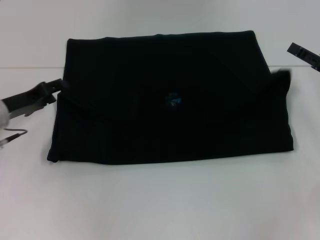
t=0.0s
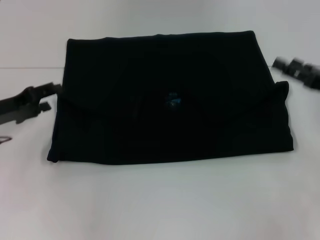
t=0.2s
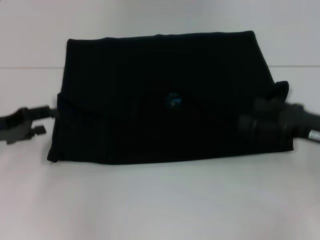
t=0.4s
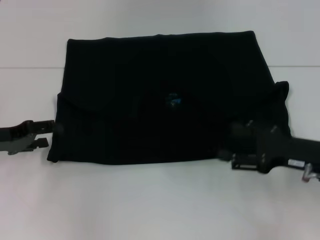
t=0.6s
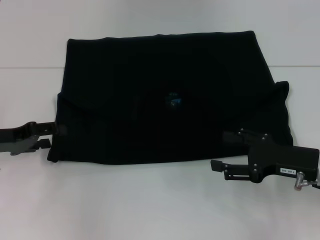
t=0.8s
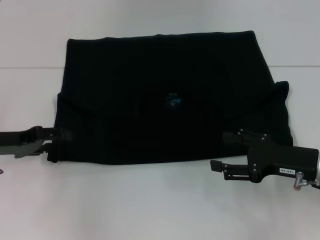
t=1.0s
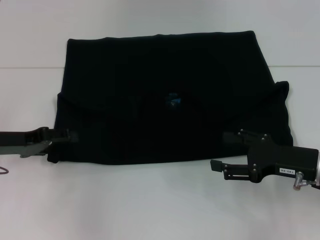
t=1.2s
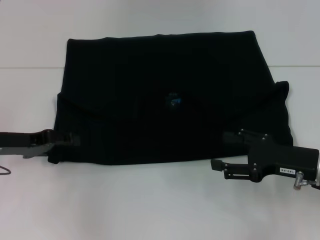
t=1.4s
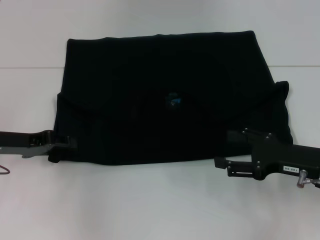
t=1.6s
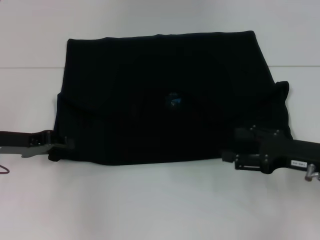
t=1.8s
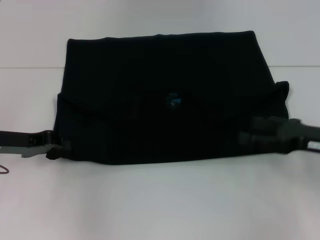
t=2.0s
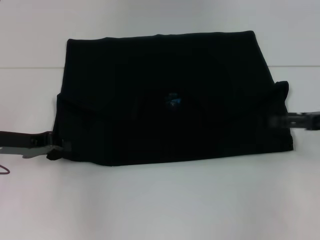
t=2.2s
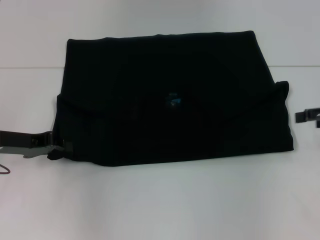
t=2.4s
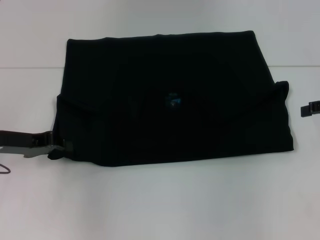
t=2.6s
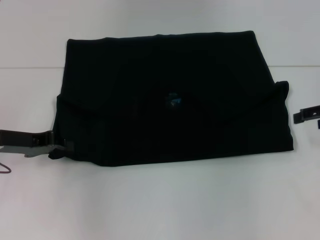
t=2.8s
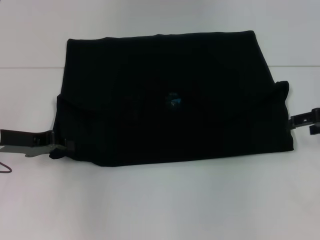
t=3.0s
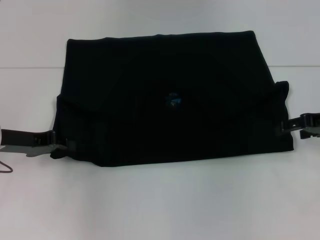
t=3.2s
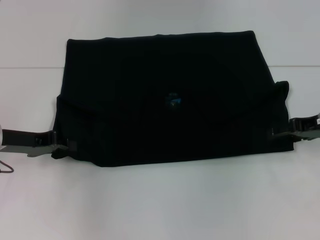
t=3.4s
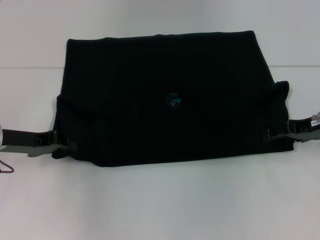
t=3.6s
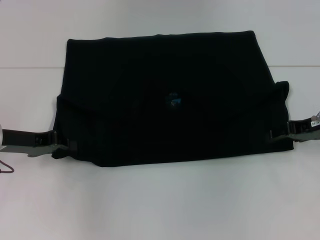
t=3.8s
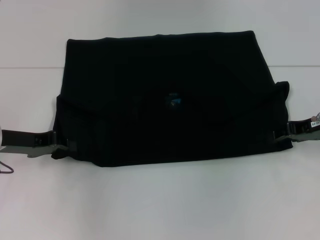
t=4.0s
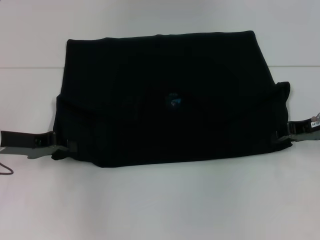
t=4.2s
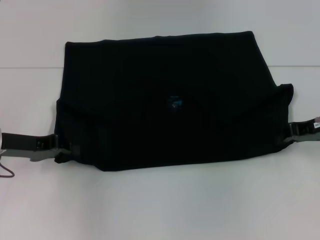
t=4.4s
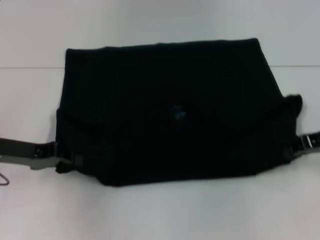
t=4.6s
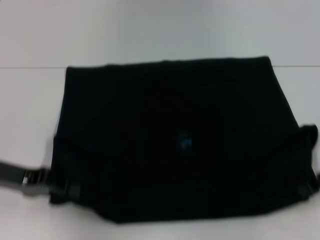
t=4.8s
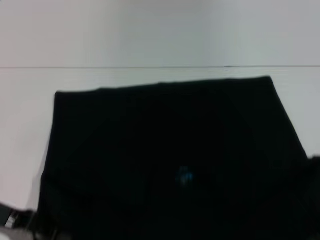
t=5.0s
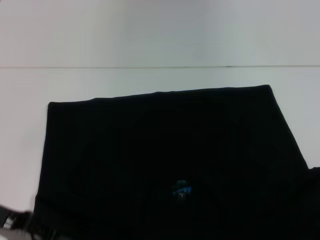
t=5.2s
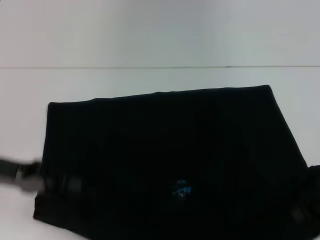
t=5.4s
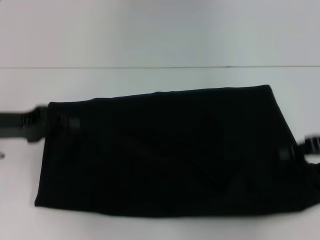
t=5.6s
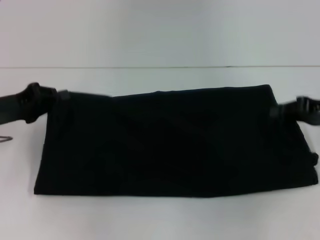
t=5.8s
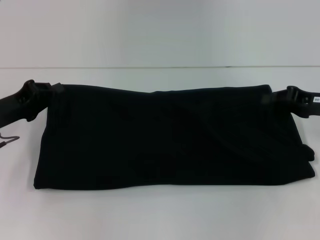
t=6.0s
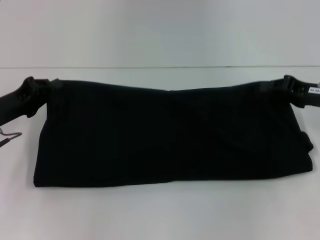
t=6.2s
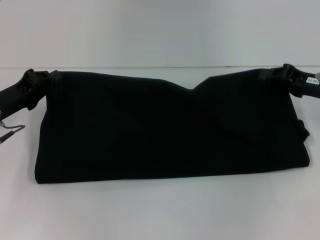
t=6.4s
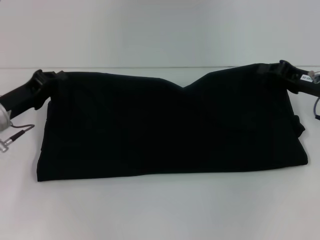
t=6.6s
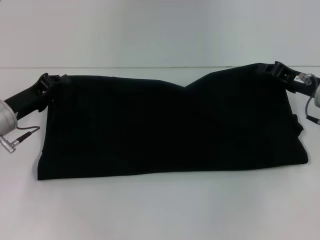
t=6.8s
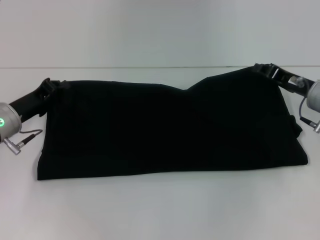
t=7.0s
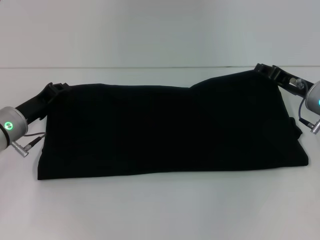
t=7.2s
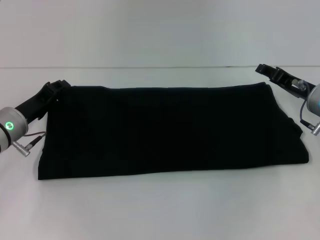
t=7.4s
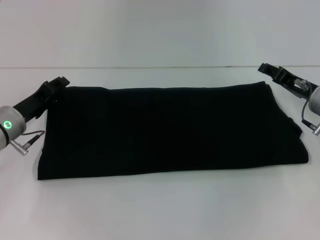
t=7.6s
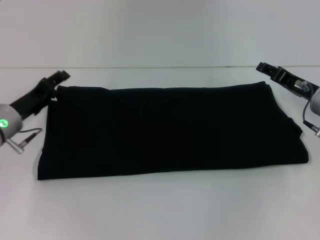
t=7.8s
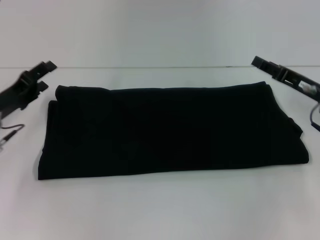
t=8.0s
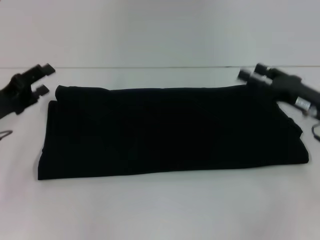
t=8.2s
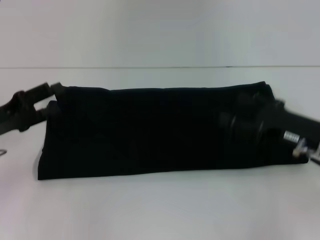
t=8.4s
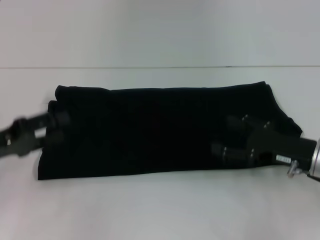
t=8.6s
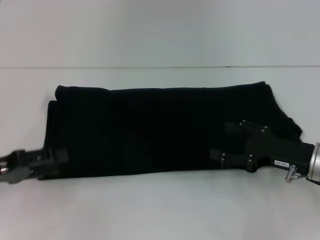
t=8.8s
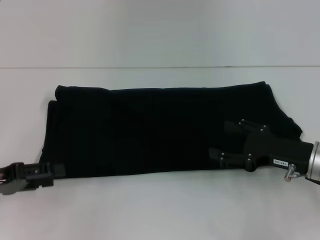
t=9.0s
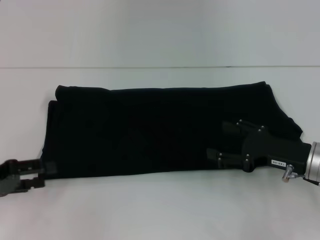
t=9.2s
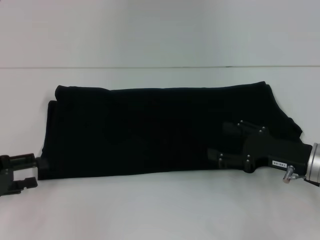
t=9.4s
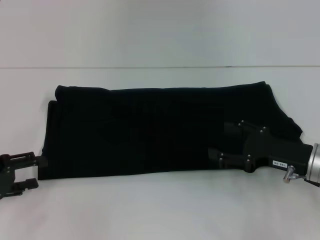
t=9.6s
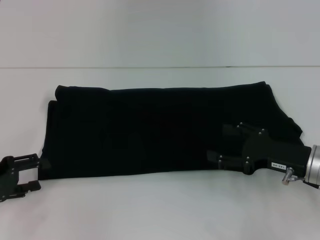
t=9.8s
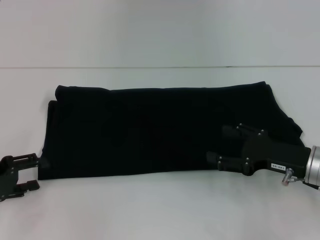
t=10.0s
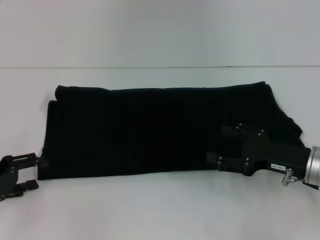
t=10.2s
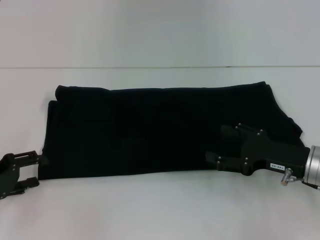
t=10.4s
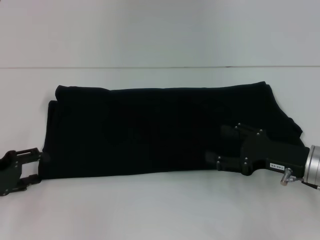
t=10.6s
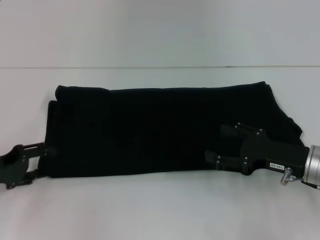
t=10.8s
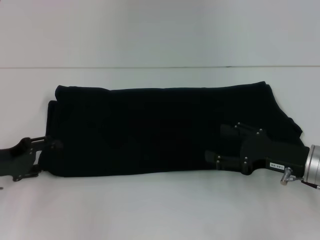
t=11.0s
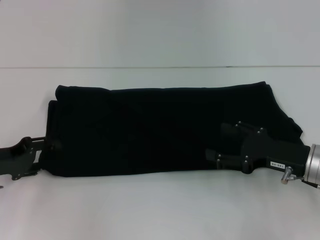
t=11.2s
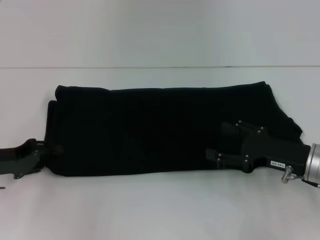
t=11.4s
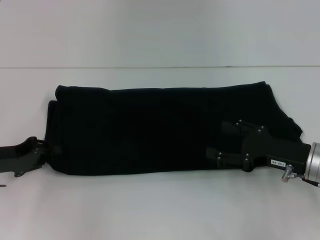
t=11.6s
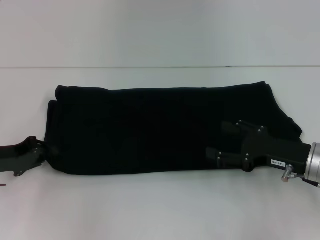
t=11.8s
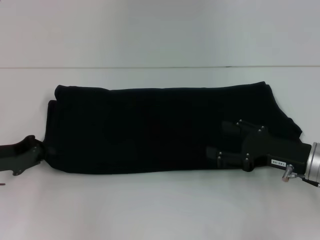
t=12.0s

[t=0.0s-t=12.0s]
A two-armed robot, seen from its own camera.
Step, t=0.2s to t=5.0s: Pull the clothes with your left hand.
Step, t=0.2s to t=5.0s: Pull the clothes with your right hand.
Step, t=5.2s to t=7.6s: Fold the clothes with your right hand.
t=0.0s to t=1.6s: The right gripper is displaced backward and to the left by roughly 10 cm, and opens.
t=1.6s to t=3.0s: The left gripper closes its fingers, while the right gripper is displaced forward, upward and to the right by about 15 cm.
t=3.0s to t=4.4s: The right gripper closes up.
t=4.4s to t=6.0s: The right gripper goes backward and returns, approximately 10 cm each way; the left gripper travels backward and back again, some 5 cm each way.
t=6.0s to t=7.6s: The right gripper shifts by roughly 5 cm, and opens its fingers. The left gripper changes place by approximately 5 cm.
t=7.6s to t=9.0s: The right gripper heads backward, covering roughly 10 cm. Meanwhile the left gripper heads backward and to the left, covering some 15 cm, and opens.
t=10.4s to t=12.0s: The left gripper closes up.

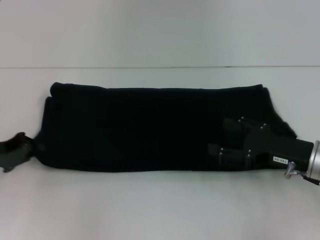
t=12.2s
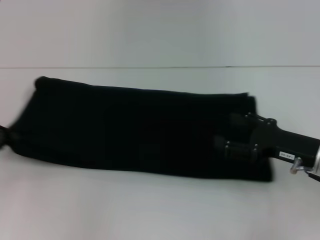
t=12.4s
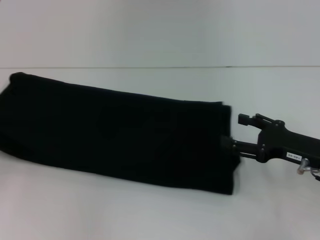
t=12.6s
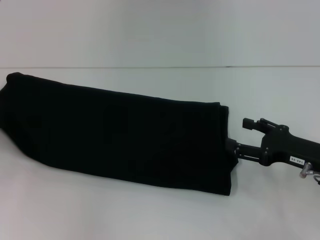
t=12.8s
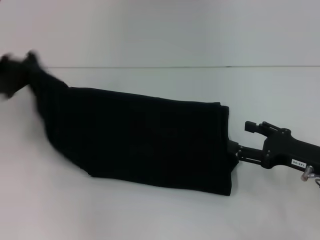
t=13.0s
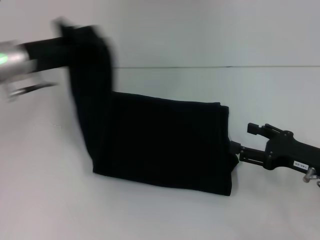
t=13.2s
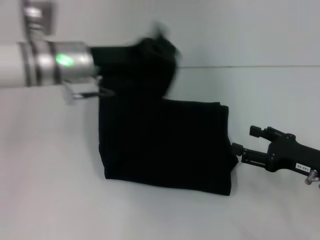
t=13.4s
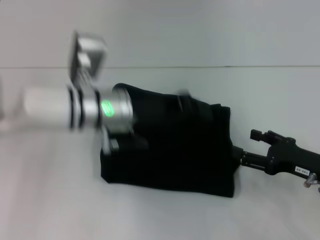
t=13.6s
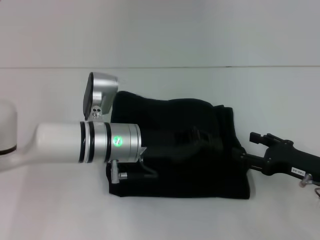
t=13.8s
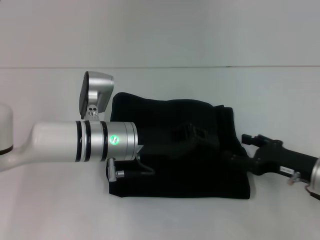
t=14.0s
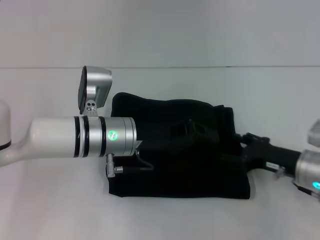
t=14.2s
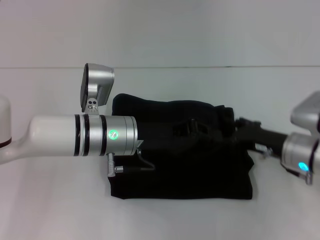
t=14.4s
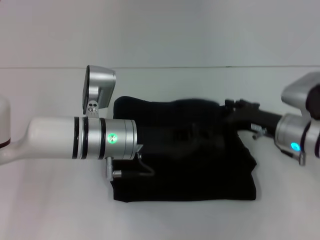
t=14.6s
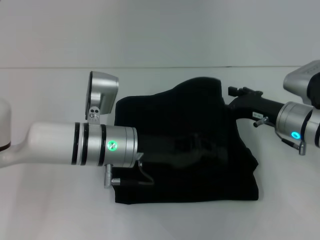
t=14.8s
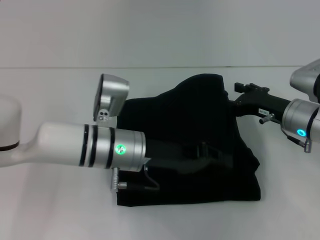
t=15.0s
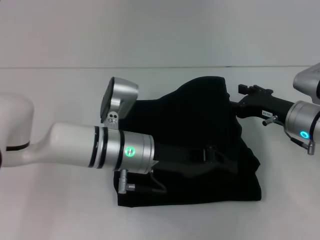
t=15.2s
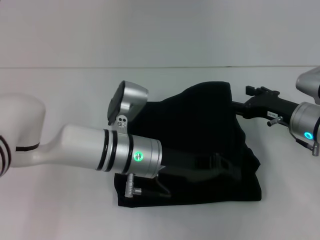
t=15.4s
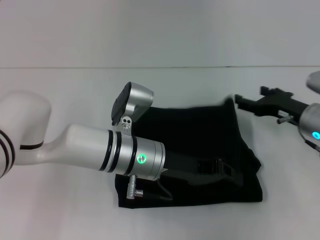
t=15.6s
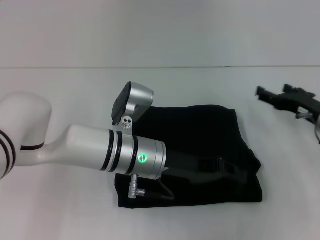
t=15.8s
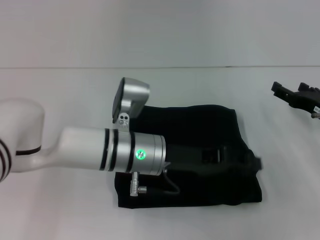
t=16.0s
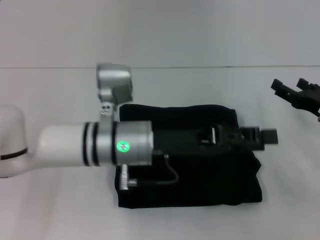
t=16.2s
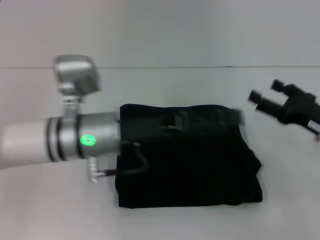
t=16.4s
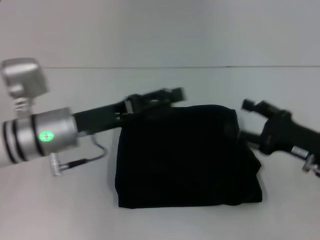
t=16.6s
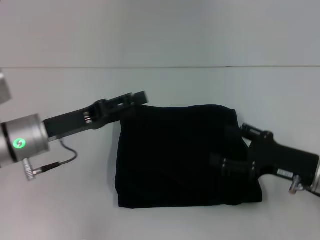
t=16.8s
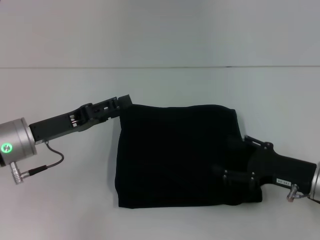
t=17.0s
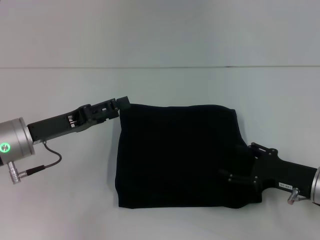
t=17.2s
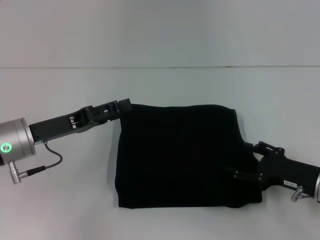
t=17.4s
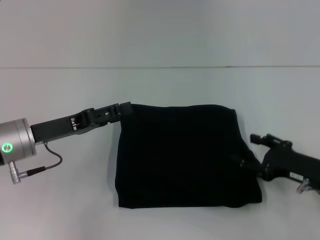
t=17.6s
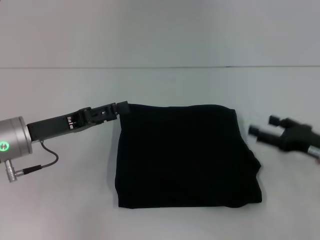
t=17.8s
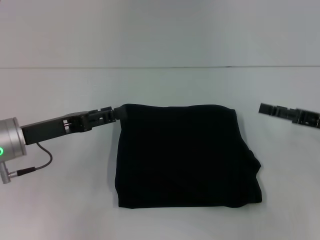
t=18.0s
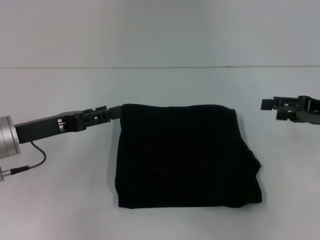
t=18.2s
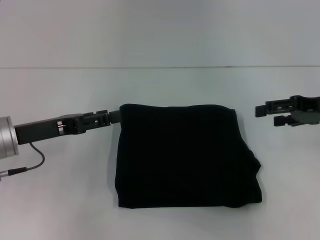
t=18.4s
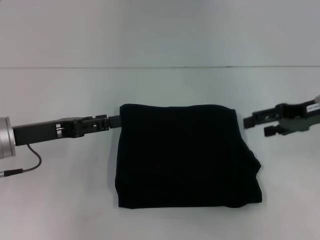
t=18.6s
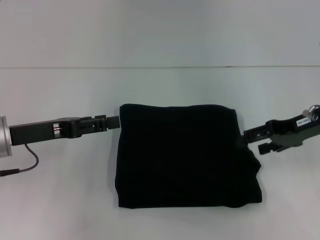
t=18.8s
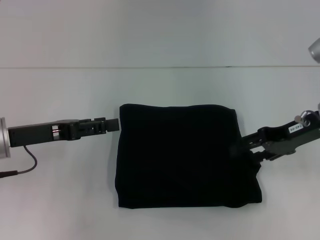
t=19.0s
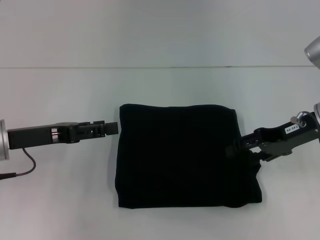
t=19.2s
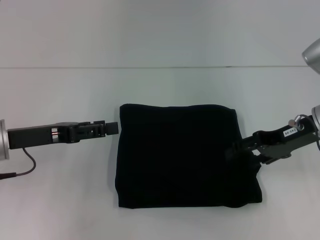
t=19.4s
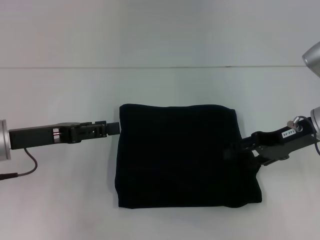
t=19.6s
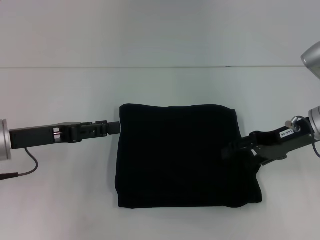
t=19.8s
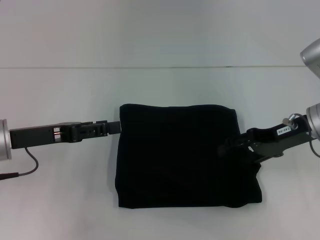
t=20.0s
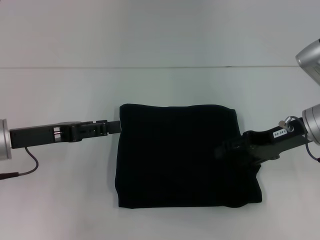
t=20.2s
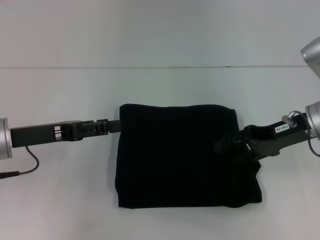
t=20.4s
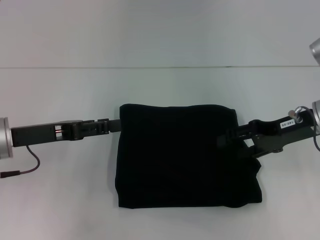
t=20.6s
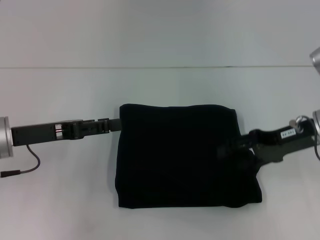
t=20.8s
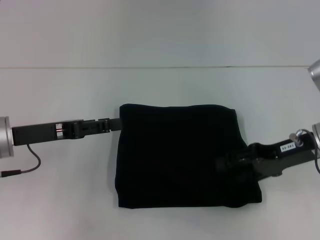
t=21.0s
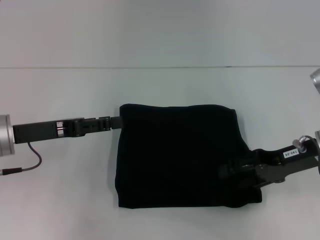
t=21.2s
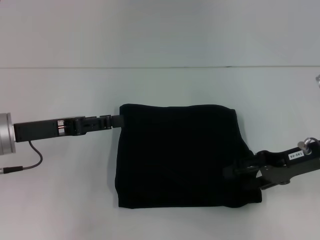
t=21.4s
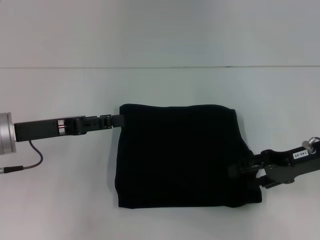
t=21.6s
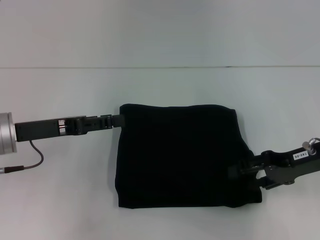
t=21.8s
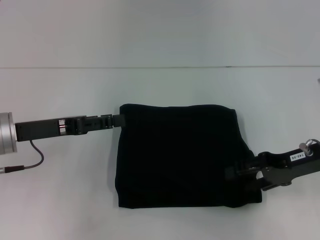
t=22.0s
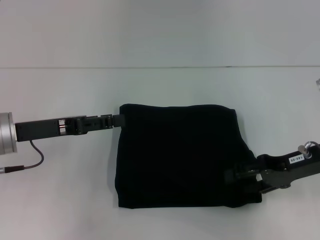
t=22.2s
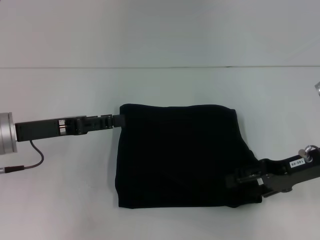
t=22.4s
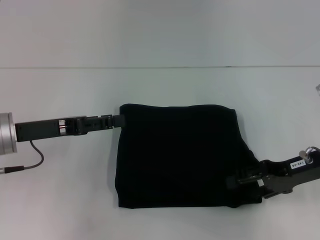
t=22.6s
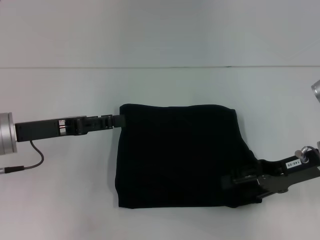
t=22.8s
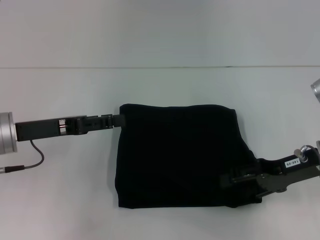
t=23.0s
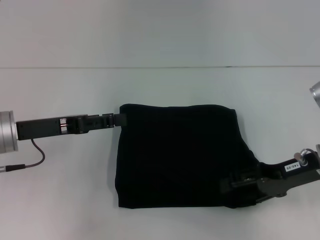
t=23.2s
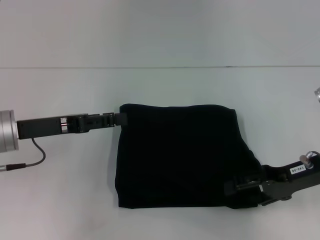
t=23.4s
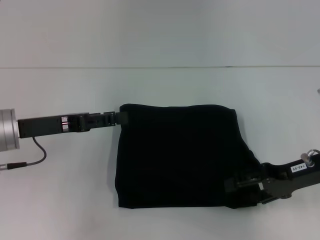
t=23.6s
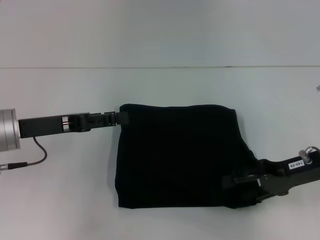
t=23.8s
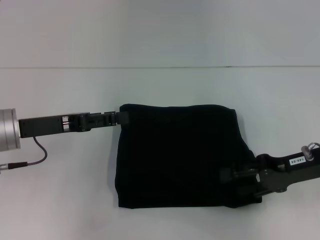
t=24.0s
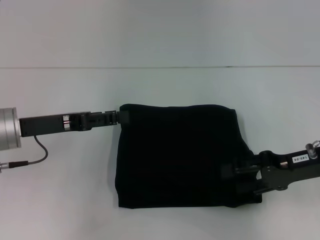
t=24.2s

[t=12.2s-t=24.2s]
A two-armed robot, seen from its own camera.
Step, t=12.2s to t=16.0s: Fold the clothes with your left hand.
t=12.2s to t=13.8s: The left gripper moves to the right, roughly 25 cm.
t=13.8s to t=15.2s: The right gripper moves forward, roughly 10 cm.
t=15.2s to t=16.6s: The left gripper is displaced to the left by roughly 10 cm, and opens; the right gripper moves backward, about 10 cm.
t=16.6s to t=18.2s: The right gripper is displaced forward, to the right and upward by about 10 cm, while the left gripper goes some 10 cm to the left.
t=18.2s to t=19.8s: The right gripper shifts about 10 cm to the left.
t=19.8s to t=24.2s: The grippers move only a little.
